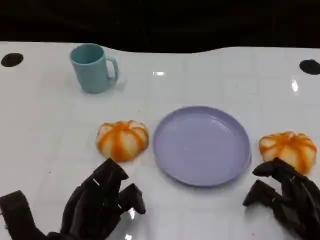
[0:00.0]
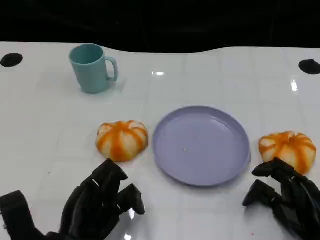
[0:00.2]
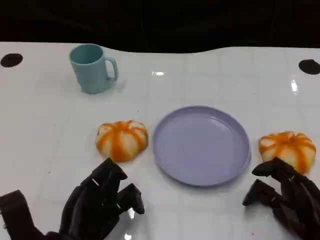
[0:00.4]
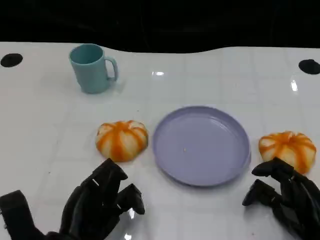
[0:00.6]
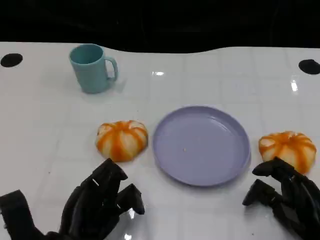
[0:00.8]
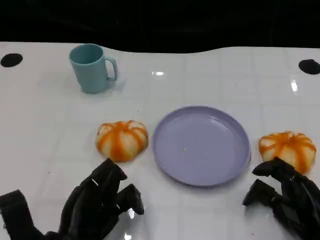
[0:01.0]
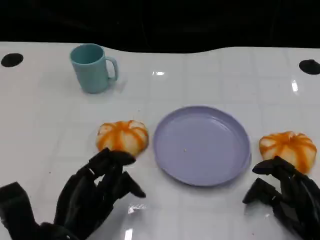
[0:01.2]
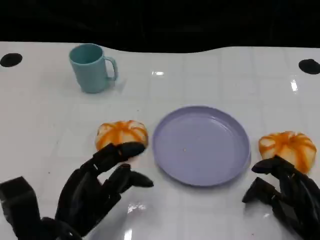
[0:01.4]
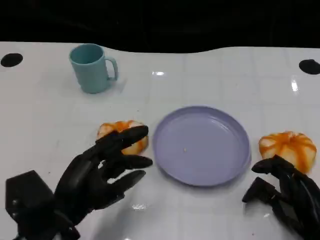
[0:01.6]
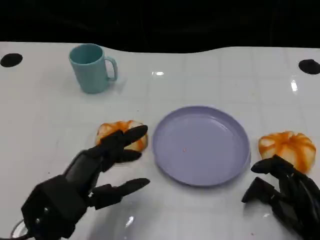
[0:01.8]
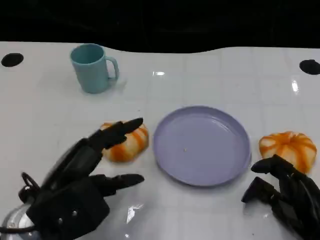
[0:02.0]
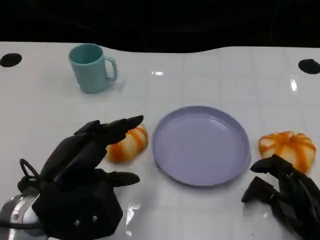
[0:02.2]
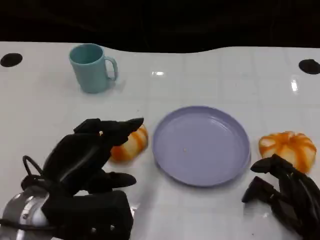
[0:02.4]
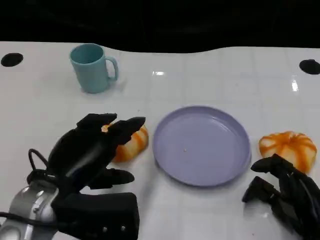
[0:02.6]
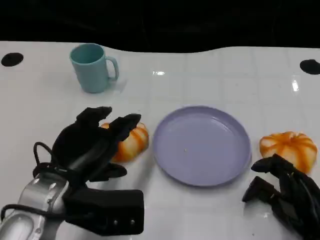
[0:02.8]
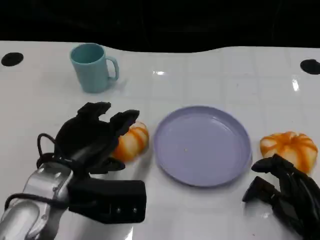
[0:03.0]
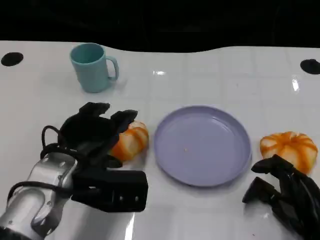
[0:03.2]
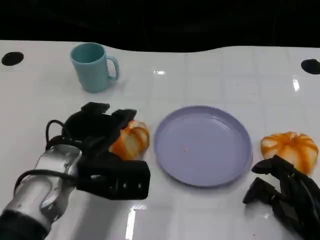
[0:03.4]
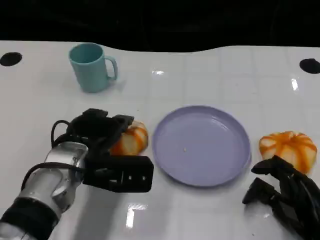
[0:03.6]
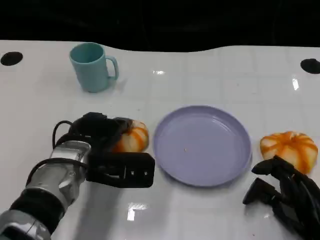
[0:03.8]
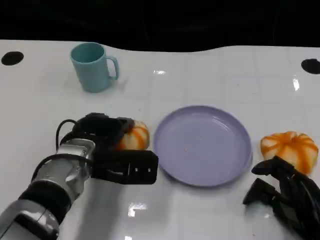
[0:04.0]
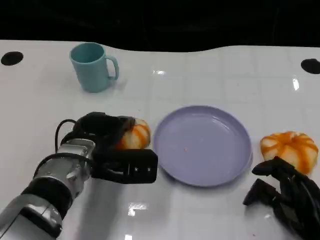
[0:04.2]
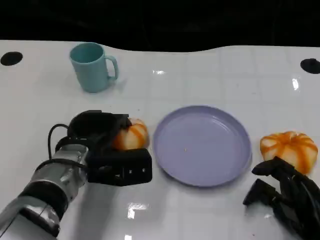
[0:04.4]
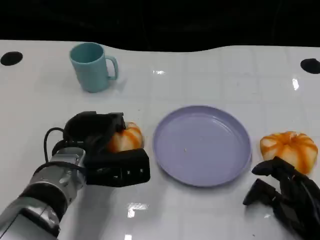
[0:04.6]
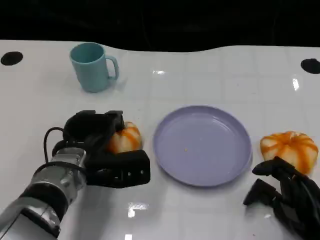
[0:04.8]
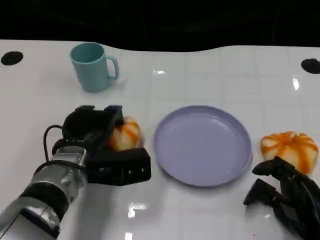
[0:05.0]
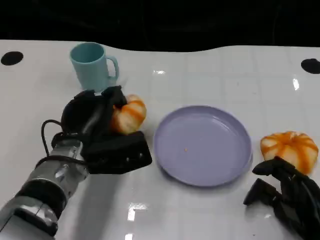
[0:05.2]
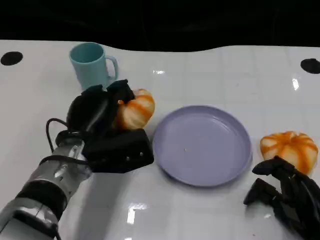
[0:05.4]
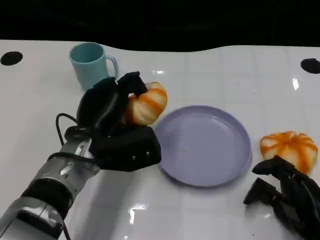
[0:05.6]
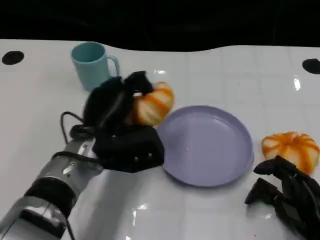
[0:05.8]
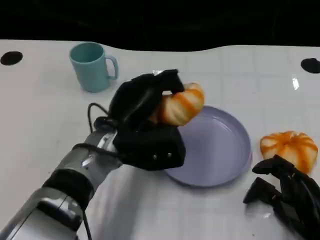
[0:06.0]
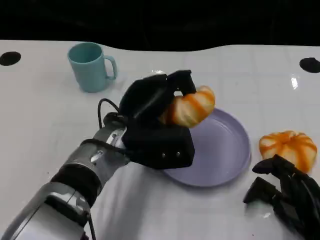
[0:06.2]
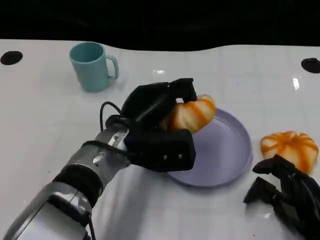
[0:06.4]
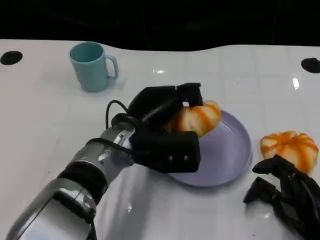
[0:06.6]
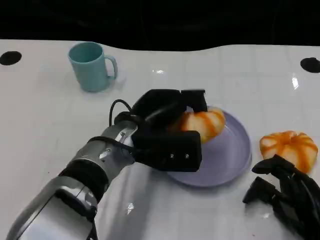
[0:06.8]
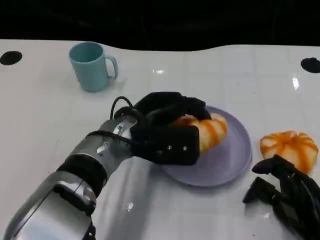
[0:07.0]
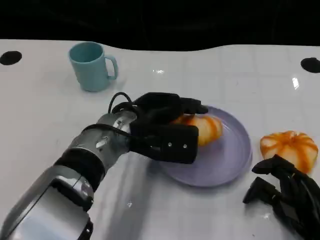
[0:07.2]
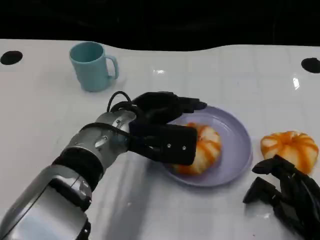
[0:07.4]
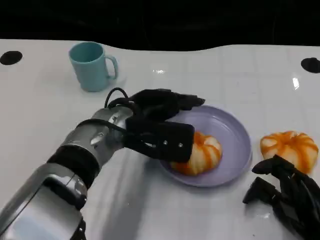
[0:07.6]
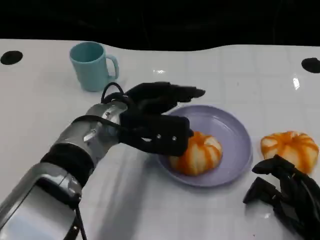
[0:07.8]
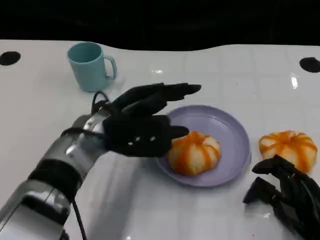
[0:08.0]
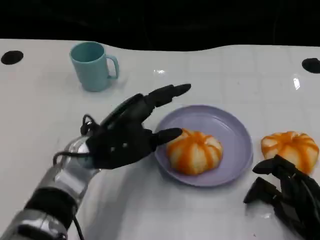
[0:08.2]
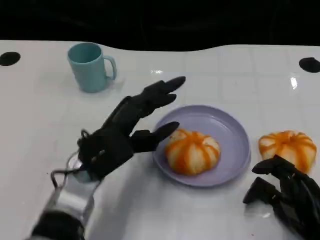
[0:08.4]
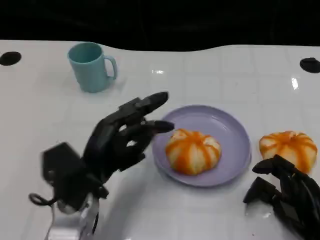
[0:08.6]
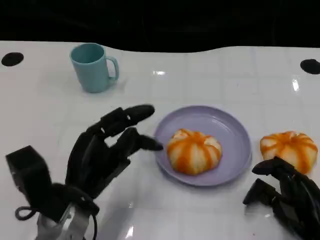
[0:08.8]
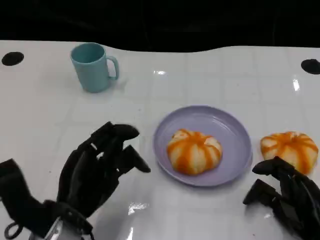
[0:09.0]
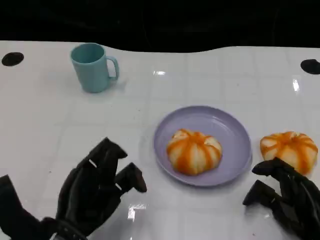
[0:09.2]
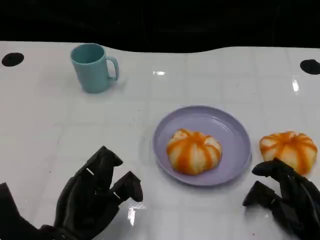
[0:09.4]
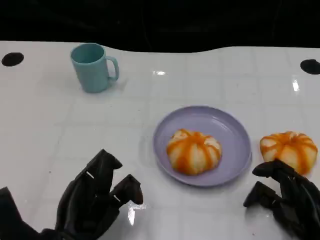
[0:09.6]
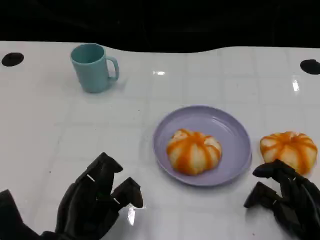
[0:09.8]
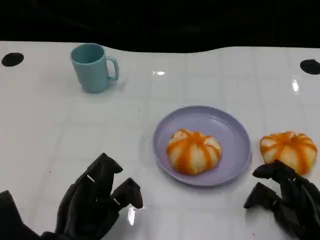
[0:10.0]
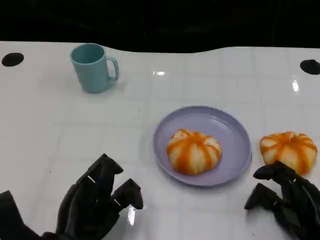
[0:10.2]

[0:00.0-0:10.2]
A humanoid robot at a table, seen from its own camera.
Task of the whole recording: Grasp the bread from the table and place it into the plate.
0:01.4 to 0:03.0: The left hand goes roughly 10 cm forward and upward.
0:03.0 to 0:04.4: The left hand heads forward and downward, covering approximately 5 cm.
0:07.2 to 0:08.8: The left hand is displaced backward and to the left by roughly 15 cm.
0:08.8 to 0:10.2: The left hand moves about 5 cm.

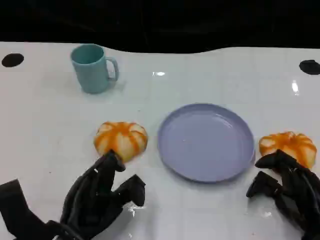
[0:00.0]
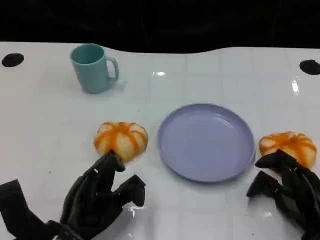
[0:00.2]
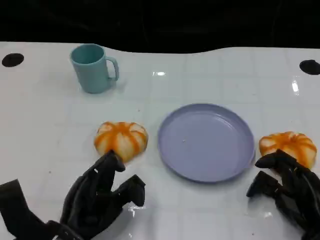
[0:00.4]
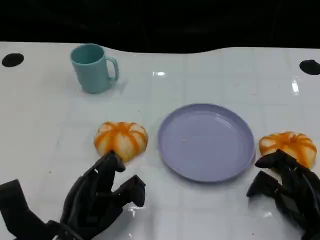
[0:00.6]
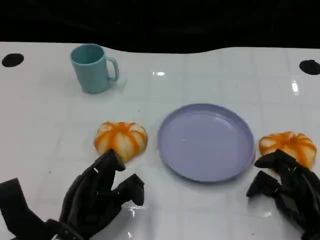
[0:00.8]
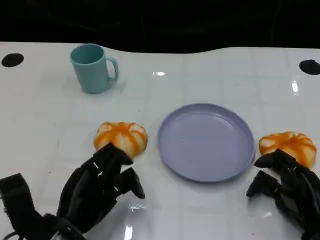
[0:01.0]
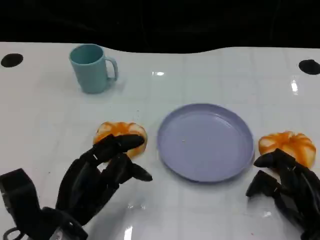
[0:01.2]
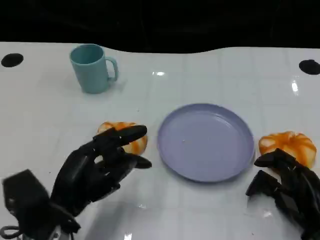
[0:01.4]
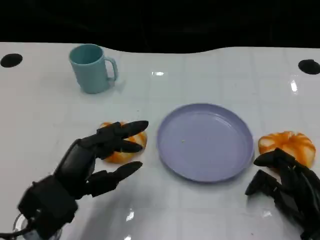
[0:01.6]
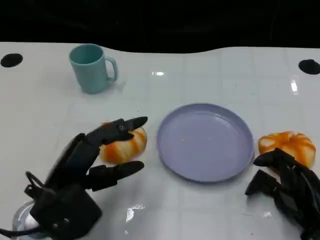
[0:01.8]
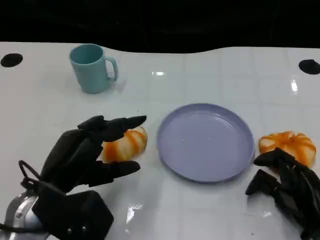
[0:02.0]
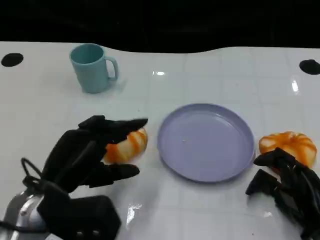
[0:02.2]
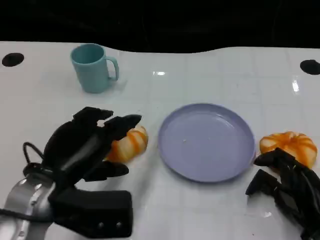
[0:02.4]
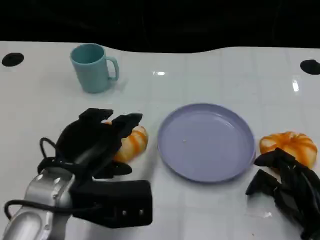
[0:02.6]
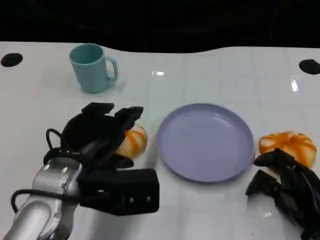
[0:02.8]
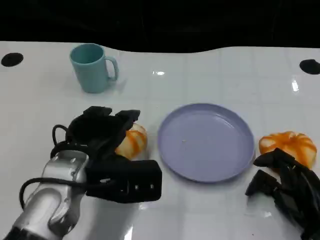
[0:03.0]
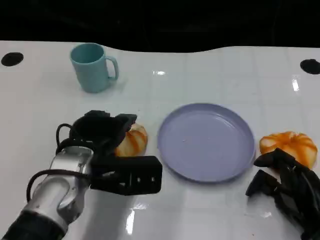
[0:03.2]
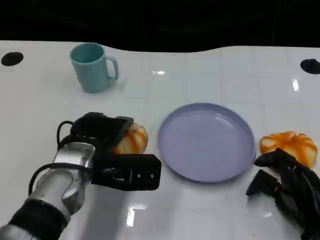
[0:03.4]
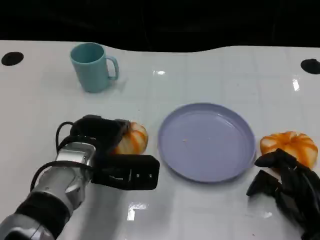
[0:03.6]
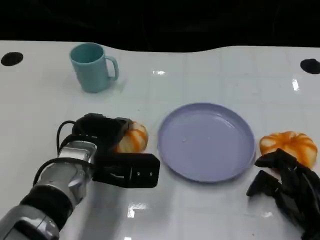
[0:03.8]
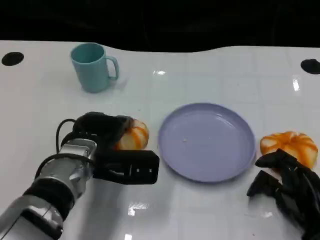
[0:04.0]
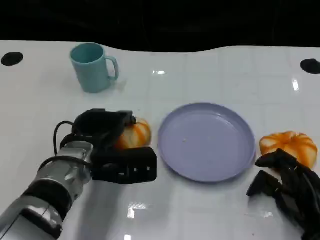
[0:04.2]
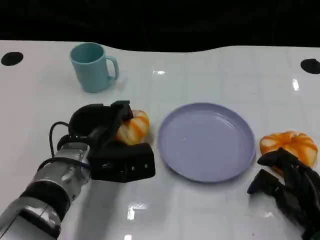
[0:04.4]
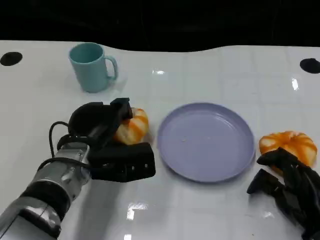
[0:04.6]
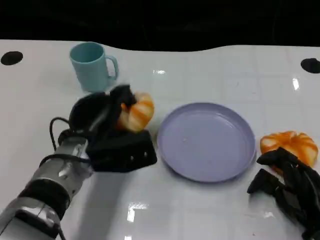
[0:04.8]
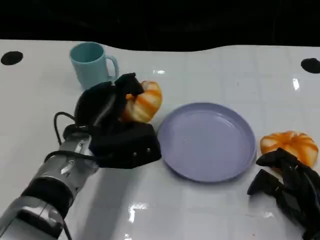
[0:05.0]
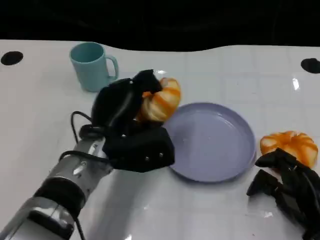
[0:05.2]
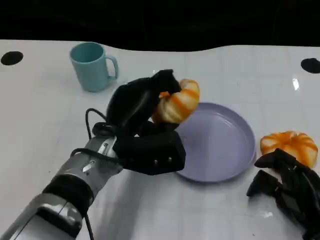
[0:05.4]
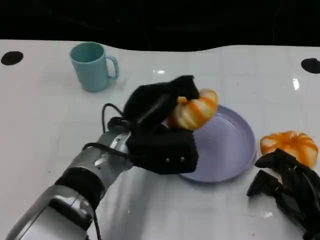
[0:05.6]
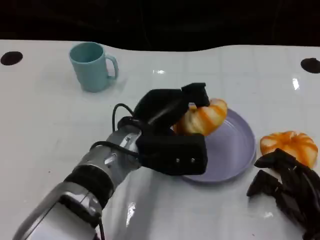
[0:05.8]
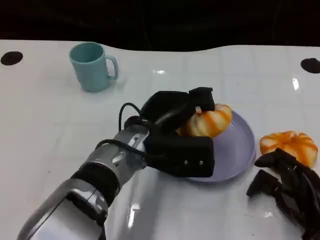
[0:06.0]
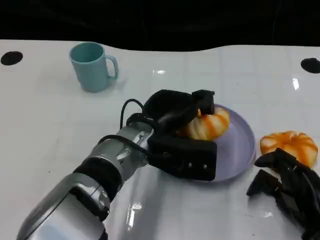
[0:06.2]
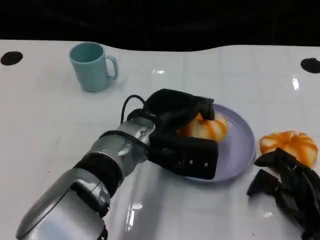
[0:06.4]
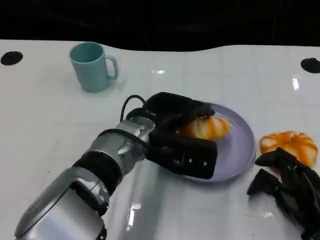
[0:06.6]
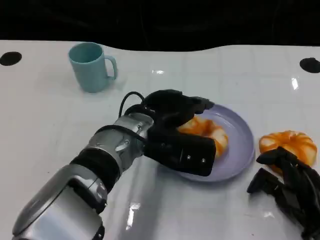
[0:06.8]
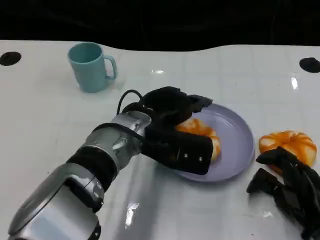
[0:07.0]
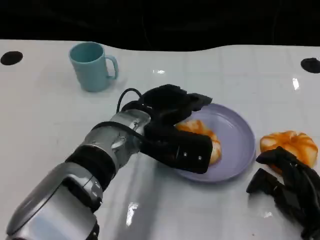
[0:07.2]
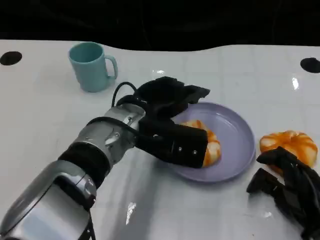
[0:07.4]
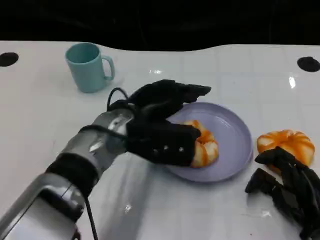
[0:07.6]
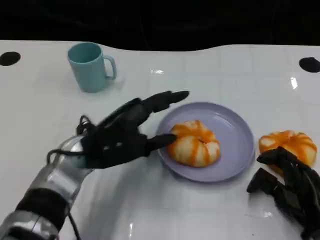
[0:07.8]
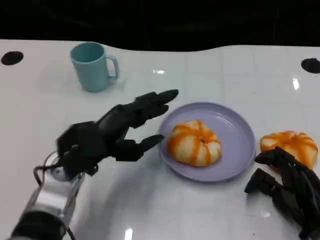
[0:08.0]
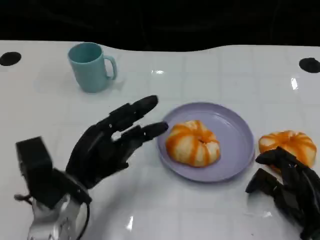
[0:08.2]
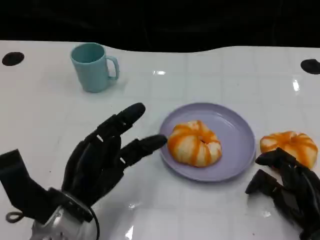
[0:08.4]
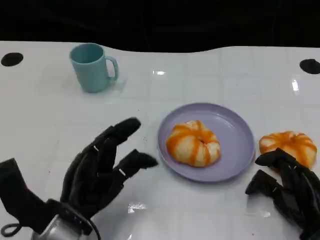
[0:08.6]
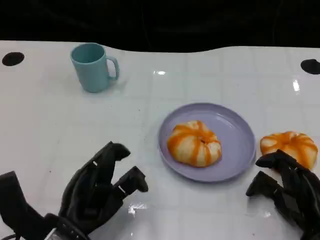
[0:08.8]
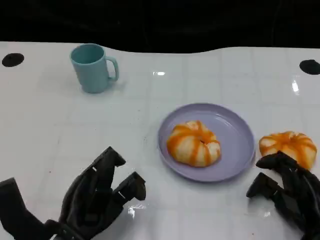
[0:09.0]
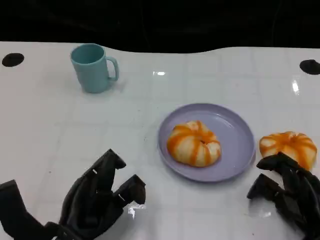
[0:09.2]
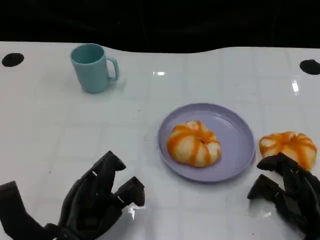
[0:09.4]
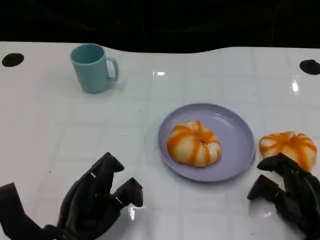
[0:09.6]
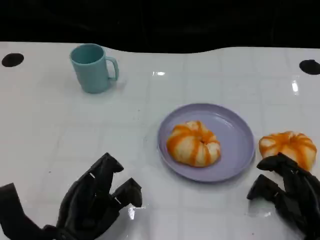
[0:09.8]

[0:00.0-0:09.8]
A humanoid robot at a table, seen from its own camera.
Task of the whole recording: Grasp the bread from the table and place it into the plate.
0:01.4 to 0:02.8: The left hand heads upward, covering some 5 cm.
0:02.8 to 0:04.2: The left hand goes about 10 cm downward and forward.
0:04.2 to 0:05.6: The left hand shifts roughly 5 cm to the right.
0:07.0 to 0:08.4: The left hand shifts roughly 15 cm to the left, backward and downward.
0:08.4 to 0:09.8: The hands stay close to where they were, moving slightly.

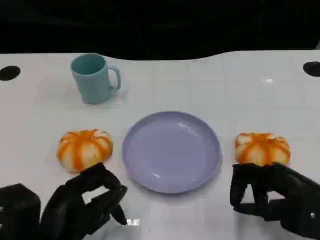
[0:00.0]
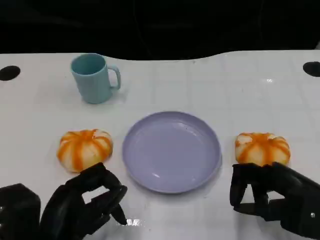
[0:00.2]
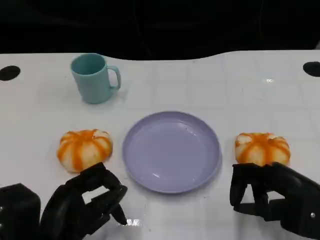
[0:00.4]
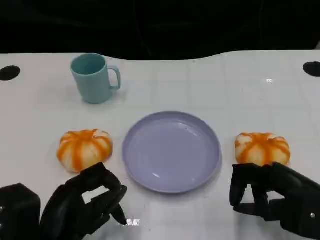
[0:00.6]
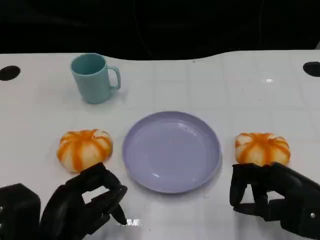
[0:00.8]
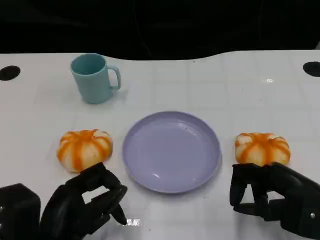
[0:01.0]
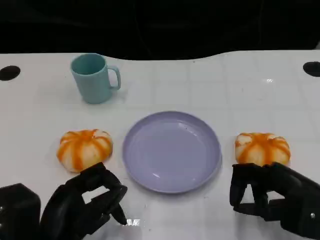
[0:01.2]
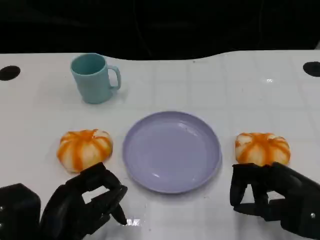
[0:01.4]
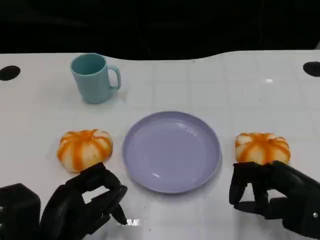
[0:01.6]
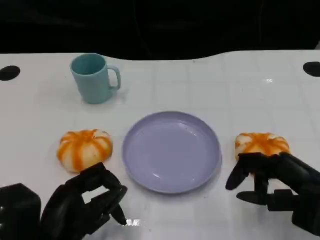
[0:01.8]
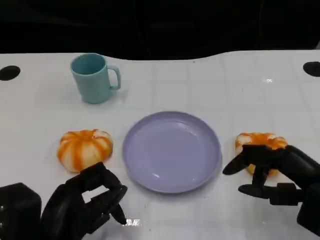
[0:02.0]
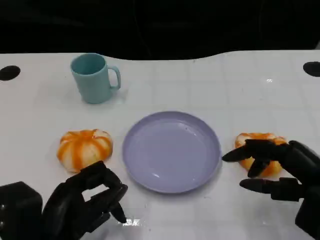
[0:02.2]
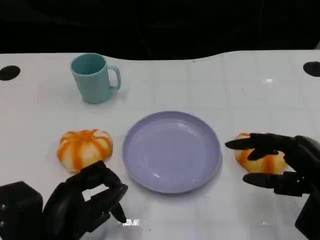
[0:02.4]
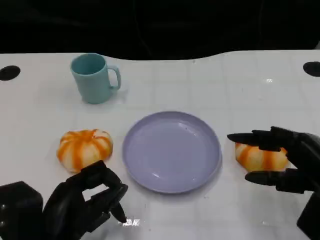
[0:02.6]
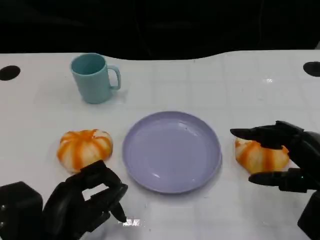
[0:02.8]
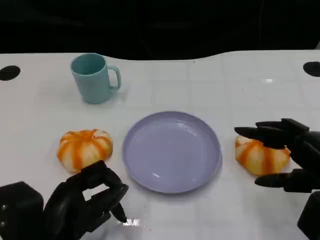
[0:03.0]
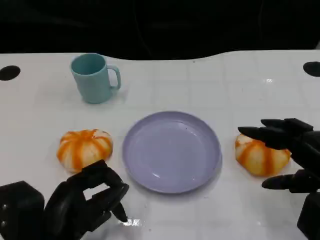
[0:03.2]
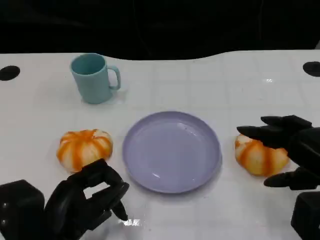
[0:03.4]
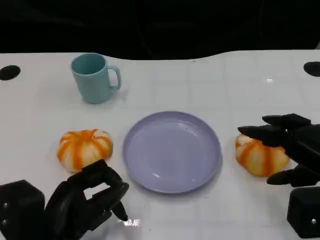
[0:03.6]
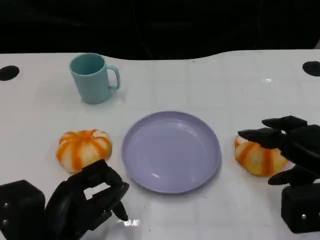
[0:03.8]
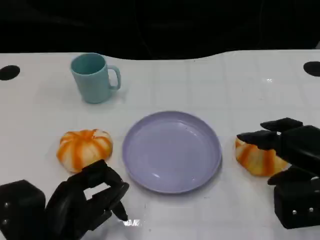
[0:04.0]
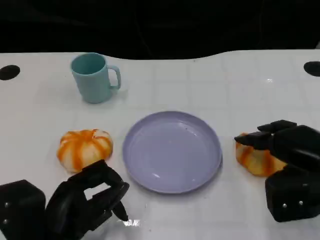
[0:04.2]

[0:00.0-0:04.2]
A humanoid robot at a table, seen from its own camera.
Task of the whole recording: Grasp the bread from the table and place it into the plate.
0:00.0 to 0:01.4: Neither hand changes place.
0:02.8 to 0:04.2: The right hand is displaced forward by about 5 cm.
